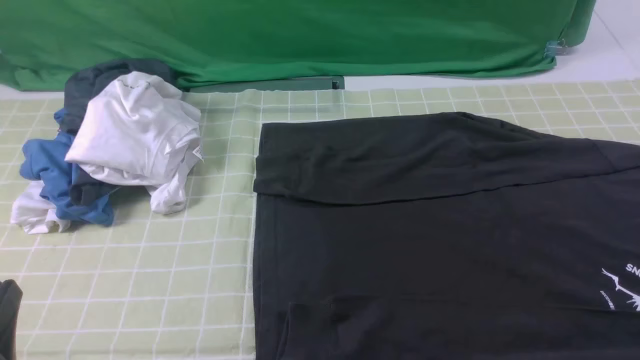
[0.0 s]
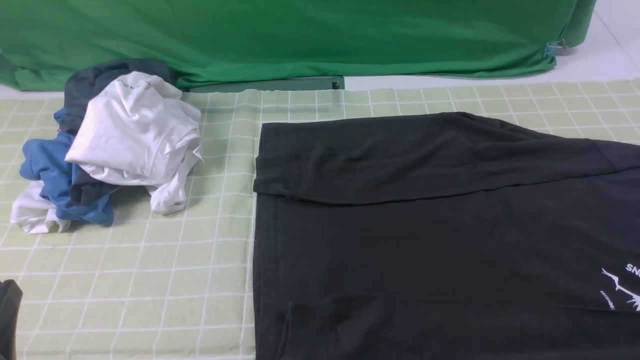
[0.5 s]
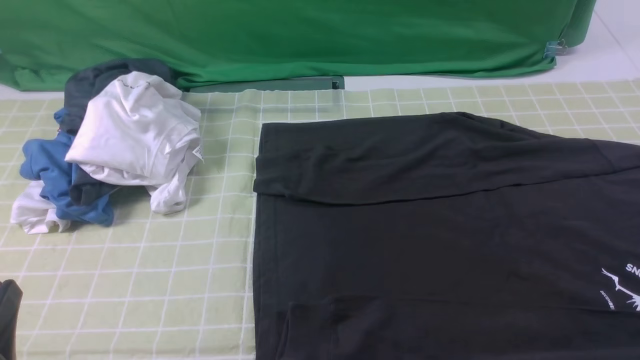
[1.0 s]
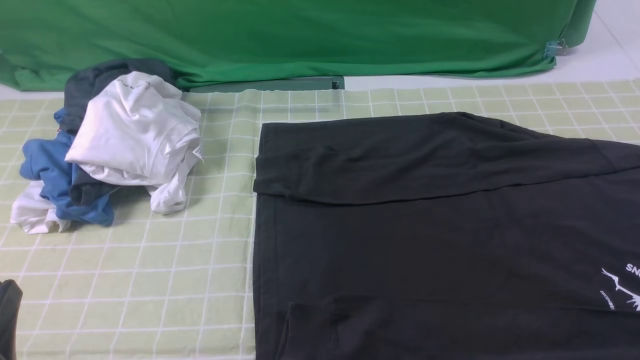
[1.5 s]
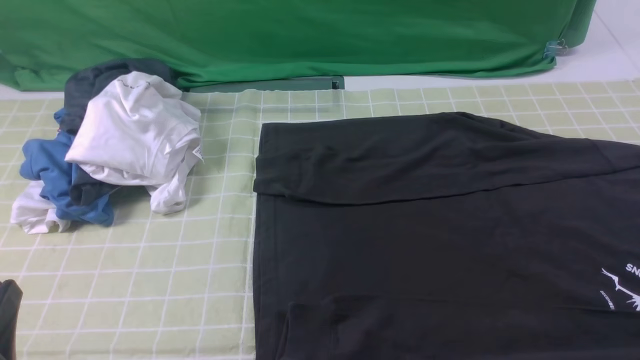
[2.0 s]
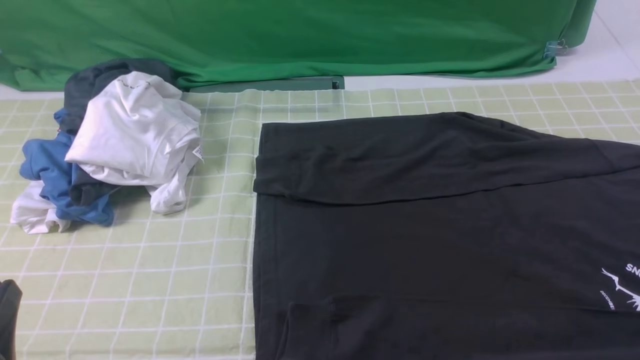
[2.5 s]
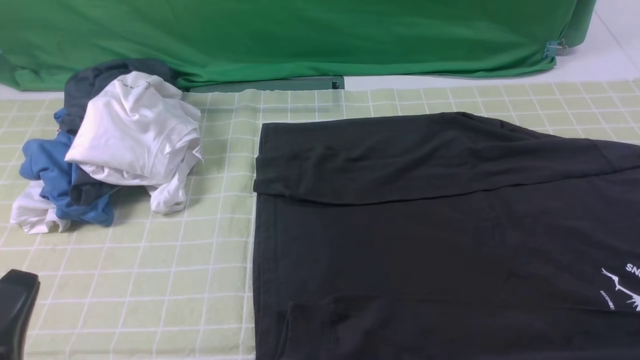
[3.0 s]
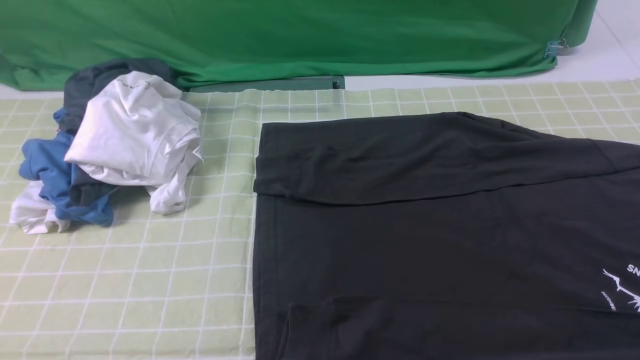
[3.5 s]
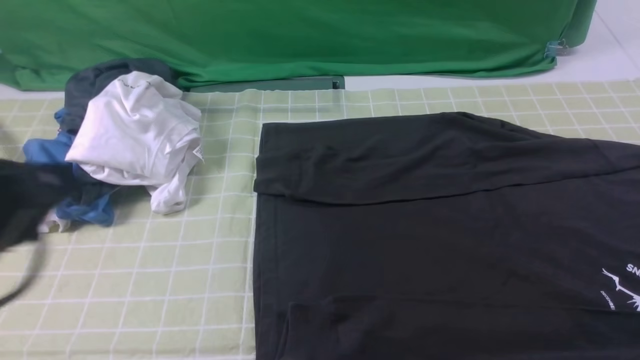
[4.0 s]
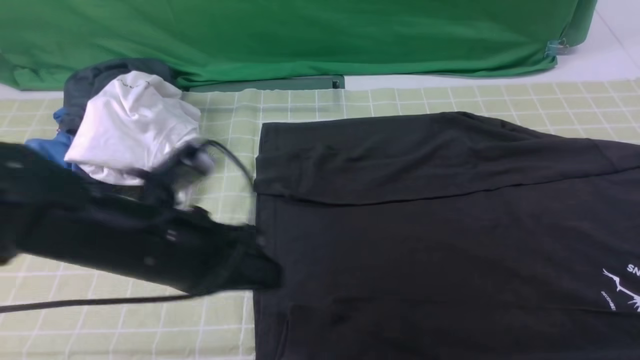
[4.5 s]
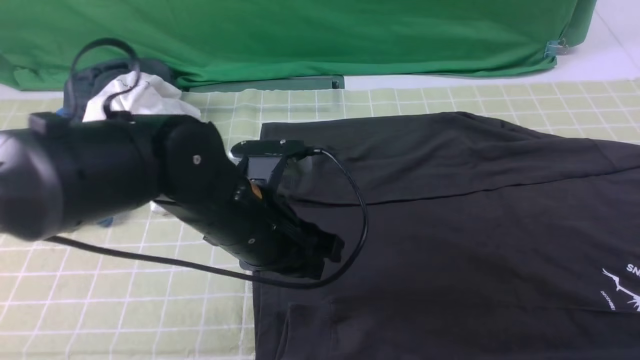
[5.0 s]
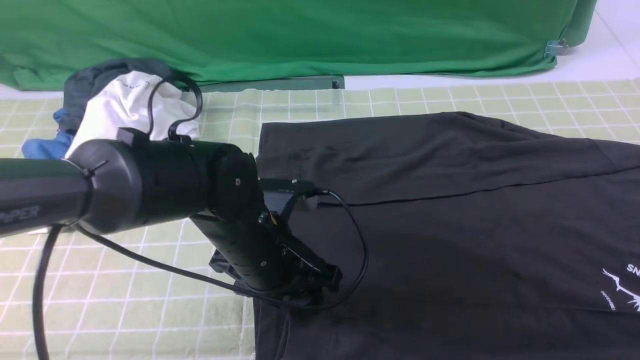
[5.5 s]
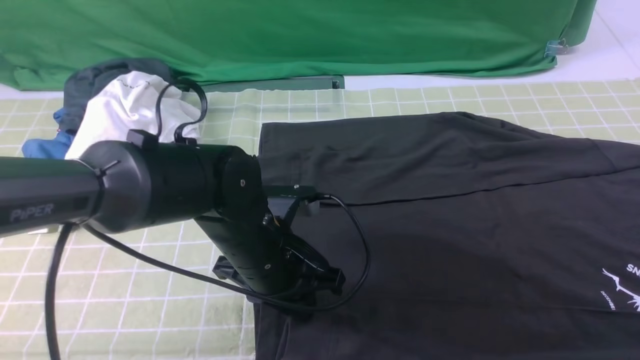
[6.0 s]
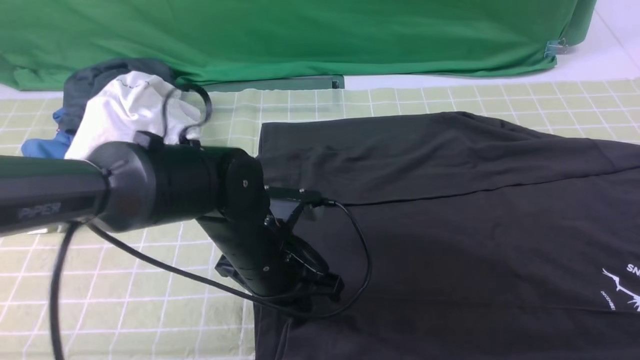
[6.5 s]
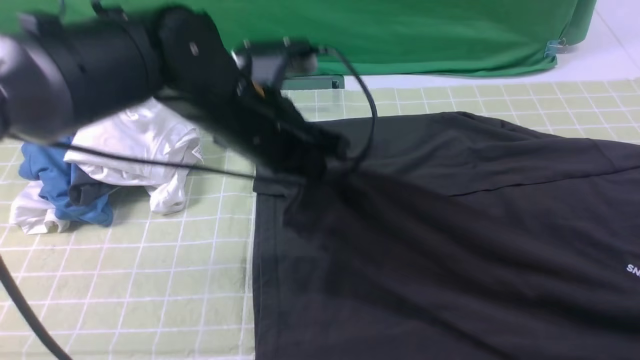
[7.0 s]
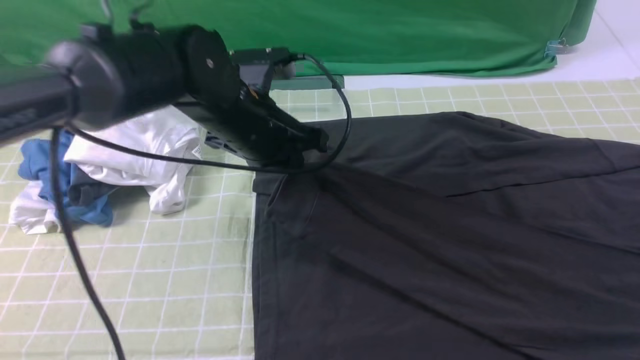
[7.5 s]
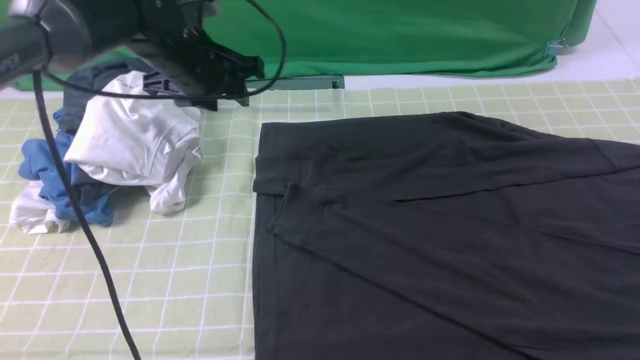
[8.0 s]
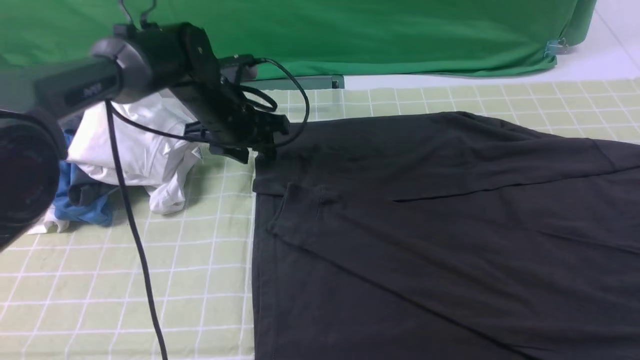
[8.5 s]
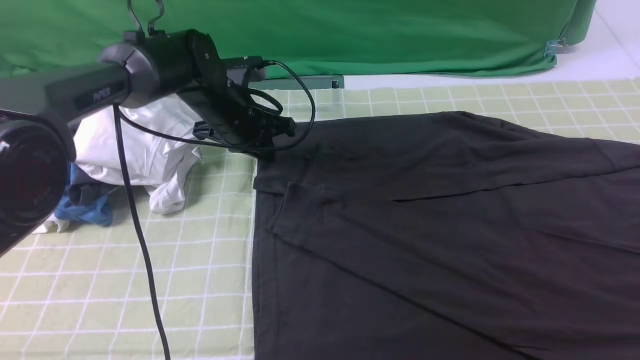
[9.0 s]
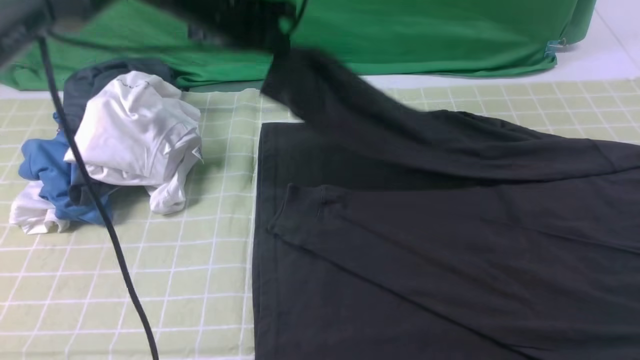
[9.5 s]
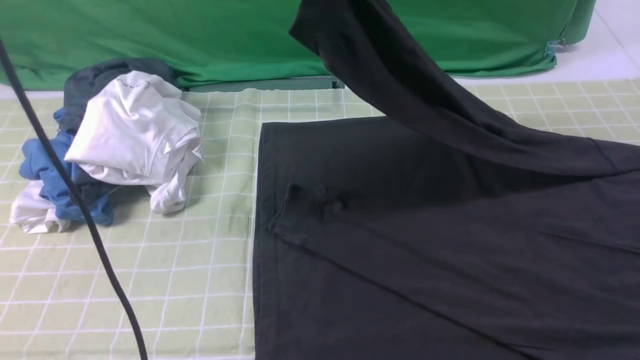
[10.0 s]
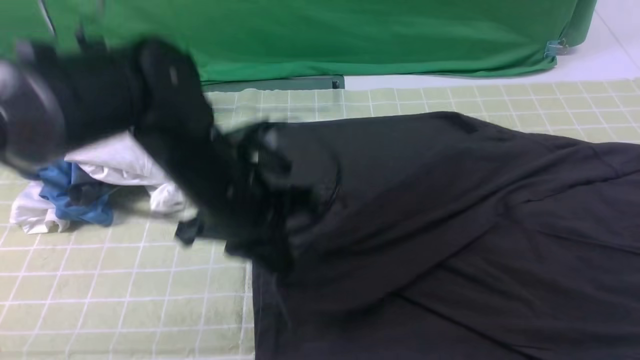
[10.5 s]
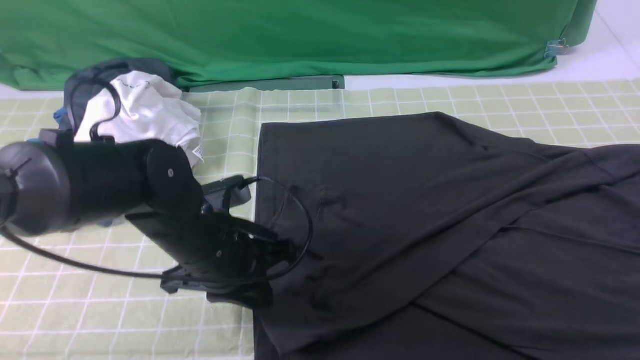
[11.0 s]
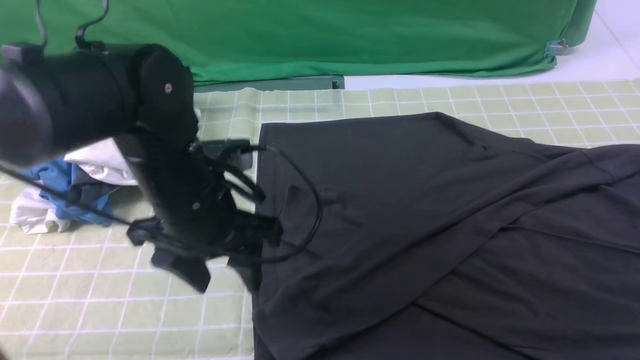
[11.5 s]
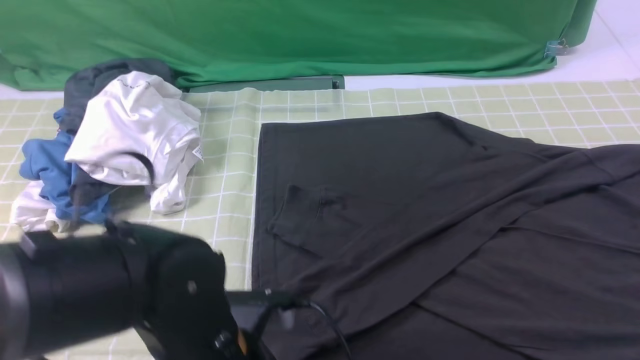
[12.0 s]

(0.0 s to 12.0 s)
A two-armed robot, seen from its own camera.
Step, 0.0 s - 6.0 s: use the left arm to clamp the cuff closest to it.
Step, 6.5 s - 7.5 s: use the left arm to drag and place the cuff at the centered position on the left edge of the fabric.
Step, 8.0 s - 8.5 s: use the left arm to clamp the cuff farthest from it.
Step, 9.0 s - 11.0 s: use the left arm to drag and drop the cuff onto the cuff closest to the left arm.
0.0 s - 2.0 s: The two grippers keep their place.
2.0 s - 4.0 s: The left gripper moves upward and forward, roughly 15 cm.
4.0 s - 6.0 s: The left gripper travels downward, to the right and forward by approximately 25 cm, and opens, then closes again.
6.0 s - 8.0 s: The left gripper is displaced forward, to the left and upward by approximately 20 cm, and closes, then opens again.
8.0 s - 10.0 s: The left gripper moves upward, approximately 15 cm, and closes its fingers.
10.0 s - 12.0 s: The left gripper shifts approximately 30 cm backward and downward, and opens up.

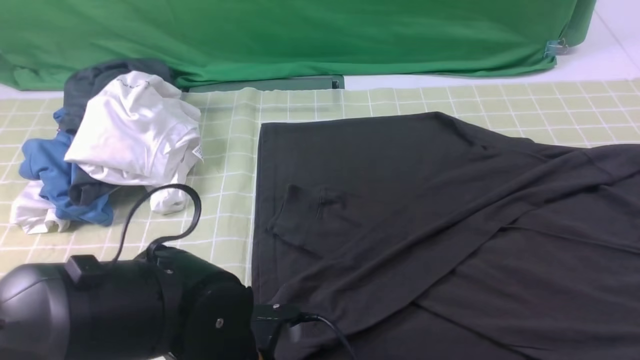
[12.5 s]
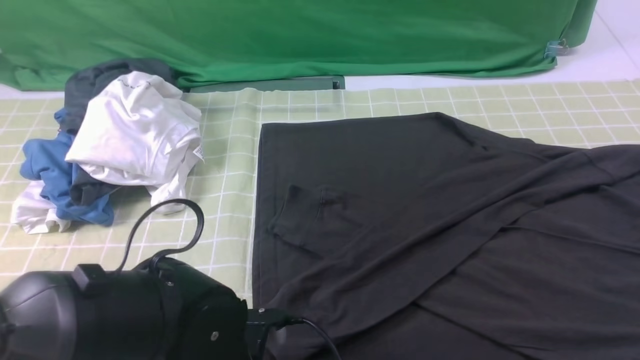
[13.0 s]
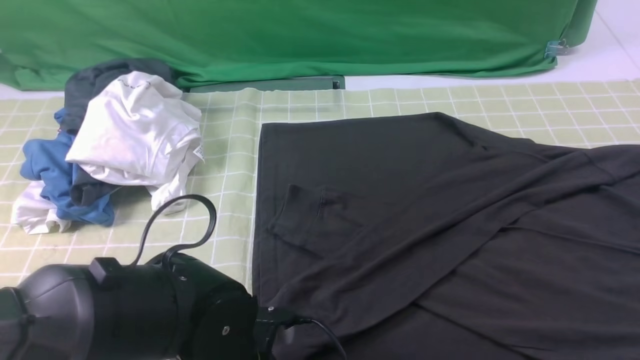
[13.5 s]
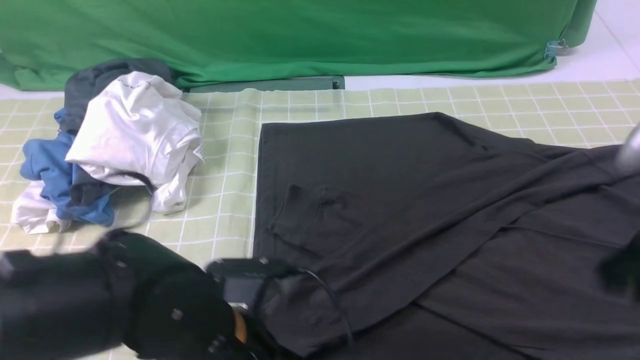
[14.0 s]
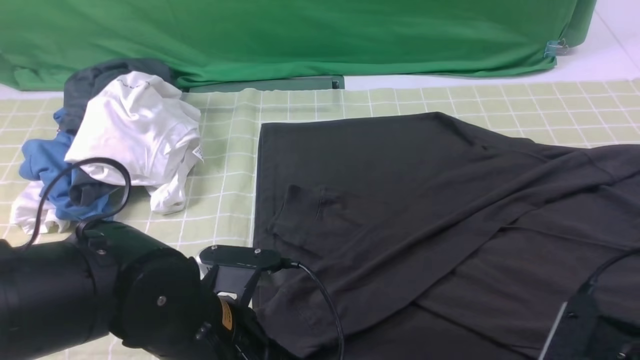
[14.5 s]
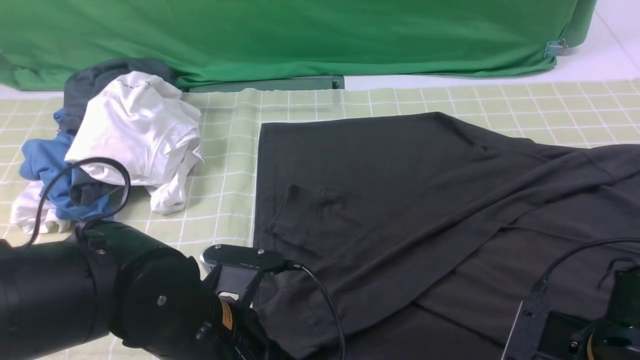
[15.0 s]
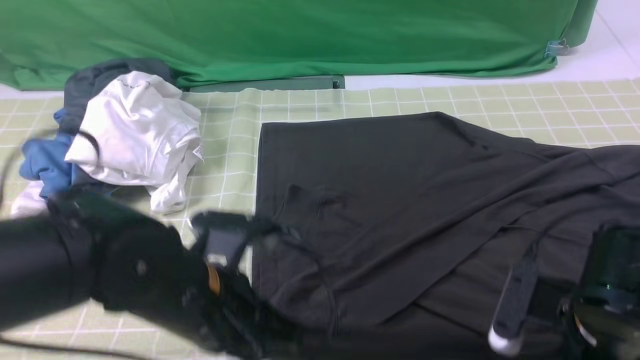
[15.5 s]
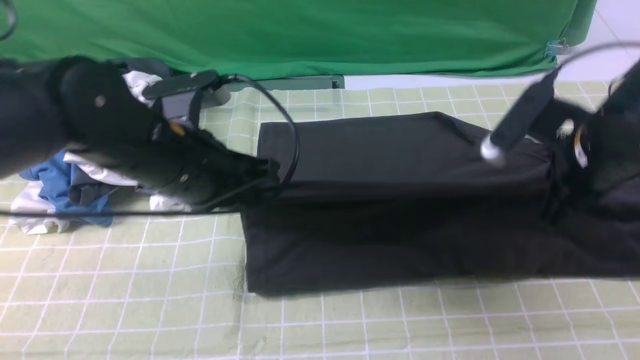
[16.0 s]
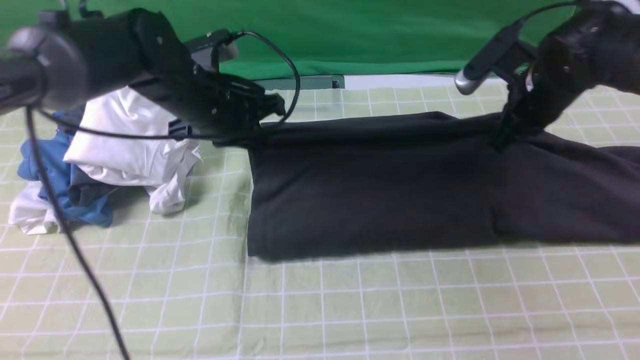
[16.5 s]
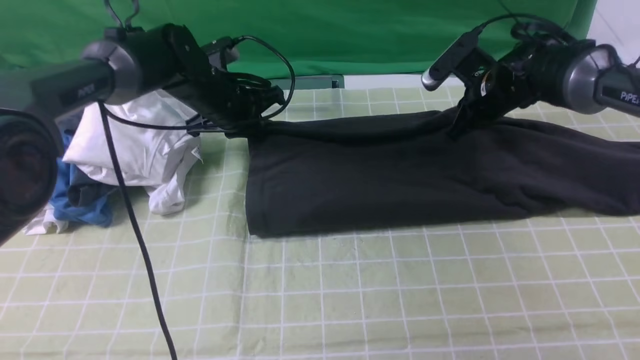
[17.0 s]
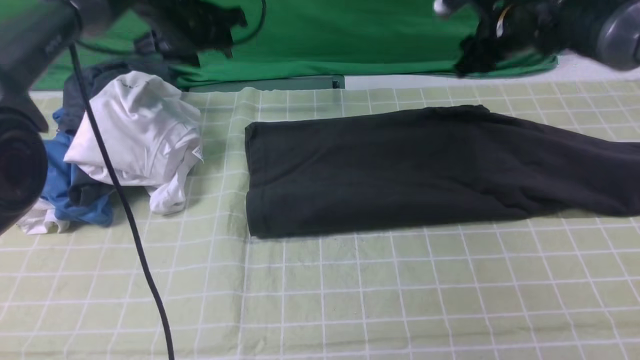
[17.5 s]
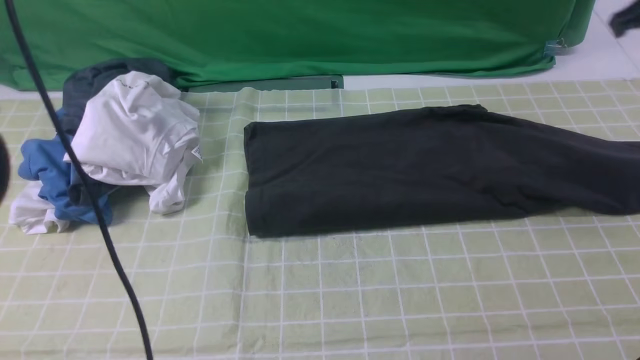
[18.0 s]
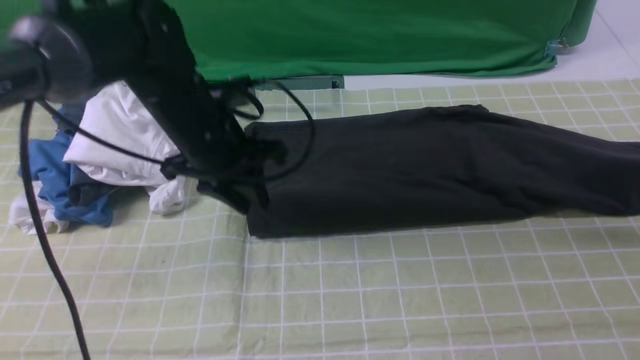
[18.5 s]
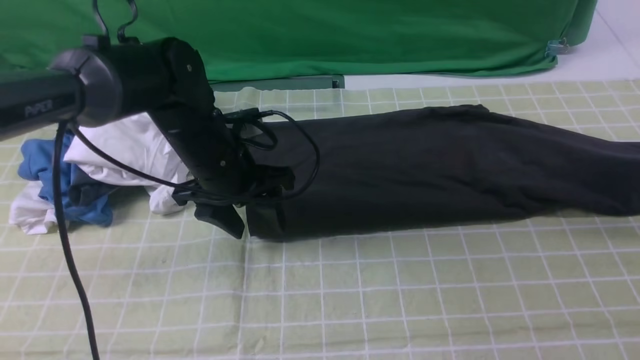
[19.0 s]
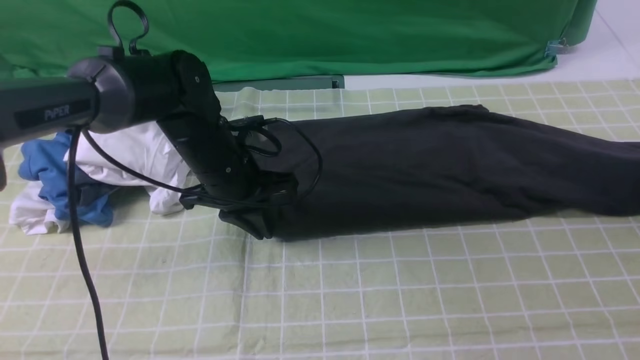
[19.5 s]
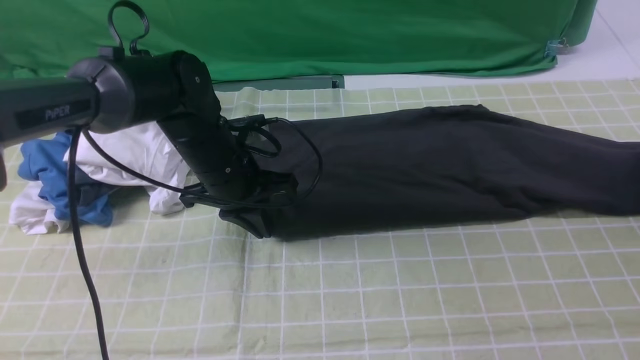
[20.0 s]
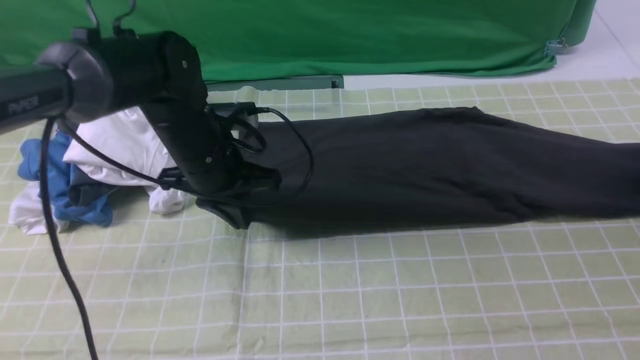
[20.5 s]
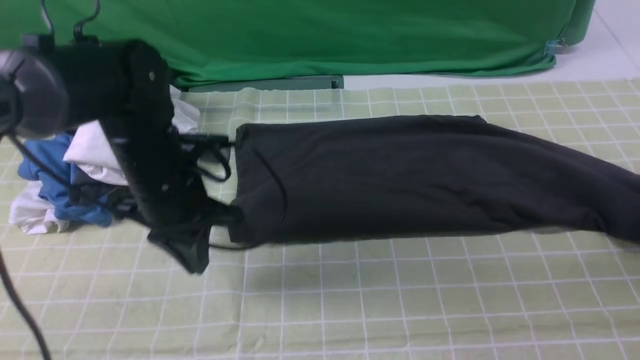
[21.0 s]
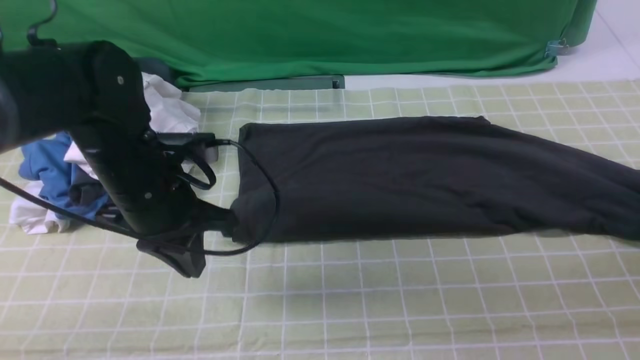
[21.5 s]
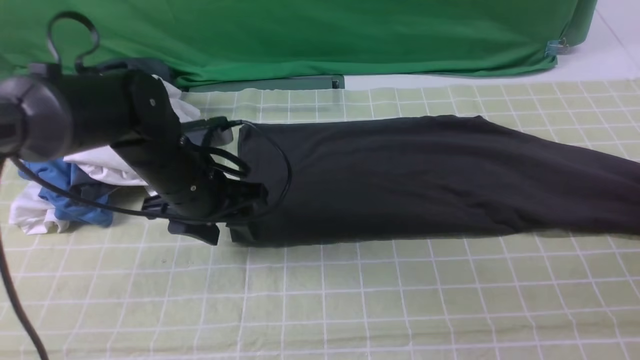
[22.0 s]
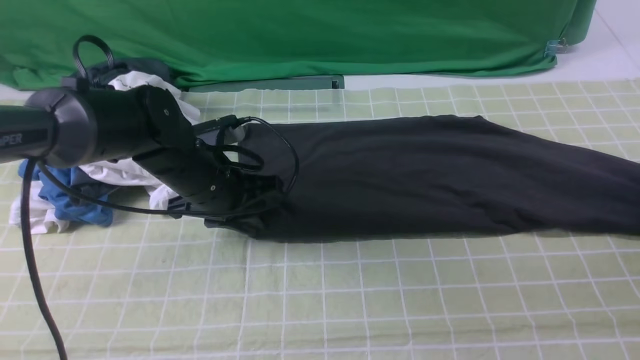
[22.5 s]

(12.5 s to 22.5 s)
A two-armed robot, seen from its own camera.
Step, 12.5 s - 15.0 s: use both arms simultaneously to clamp the lower edge of the clothing fabric.
Step, 15.5 s - 17.0 s: use both arms to drag the lower edge of the fabric forward and fold it over the upper edge.
12.5 s - 14.5 s: The right gripper is displaced downward, to the left and backward by about 20 cm, and opens, while the left gripper closes its fingers.
14.5 s - 16.5 s: The grippers both shift forward by approximately 25 cm. The right gripper closes up.
16.5 s - 18.5 s: The right gripper shifts approximately 20 cm to the right, and opens, then closes again, while the left gripper goes up and down, approximately 20 cm each way, reversing 2 times, and opens up.
18.5 s - 20.5 s: The left gripper closes. Meanwhile the right gripper shifts approximately 10 cm downward and to the right, and opens, then closes once more.
20.5 s - 22.5 s: The right gripper ends up approximately 5 cm from where it was. The left gripper opens.
